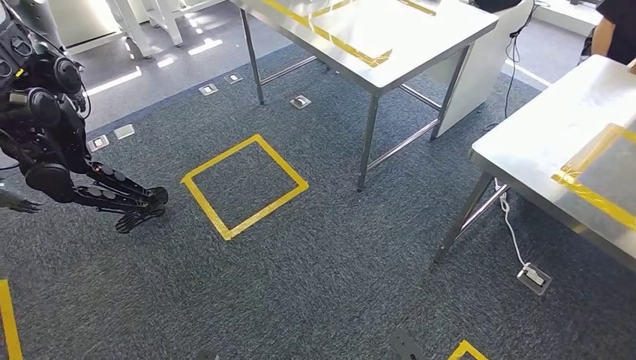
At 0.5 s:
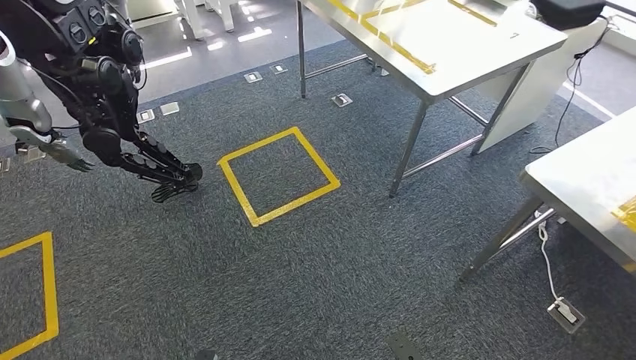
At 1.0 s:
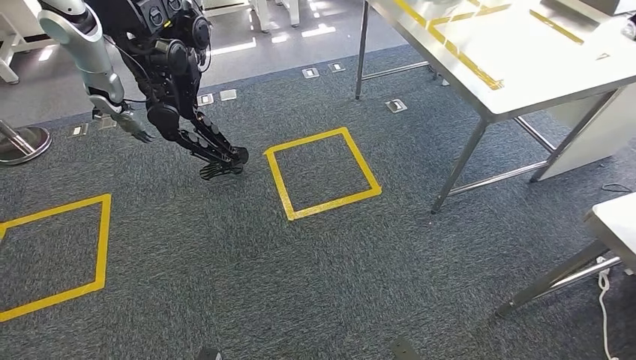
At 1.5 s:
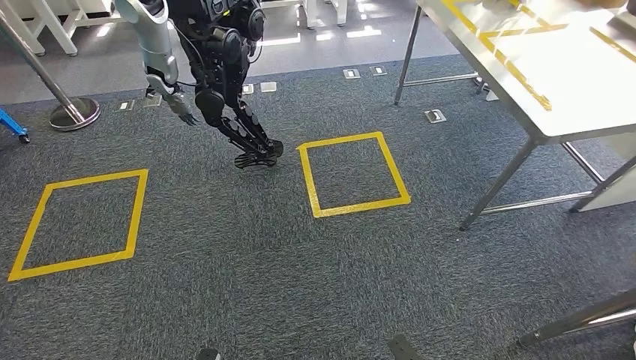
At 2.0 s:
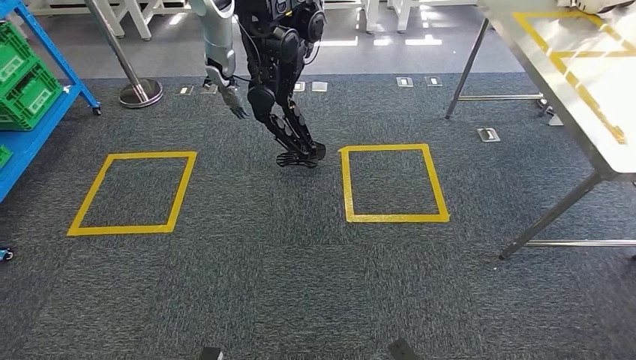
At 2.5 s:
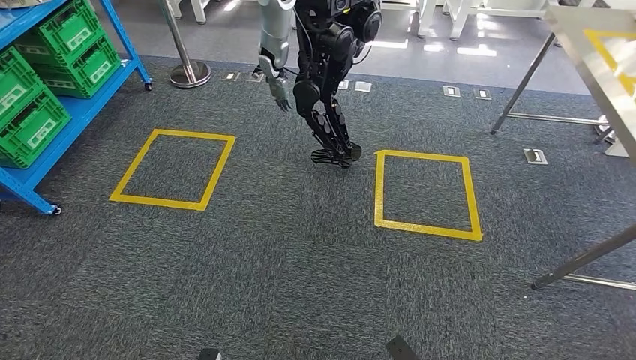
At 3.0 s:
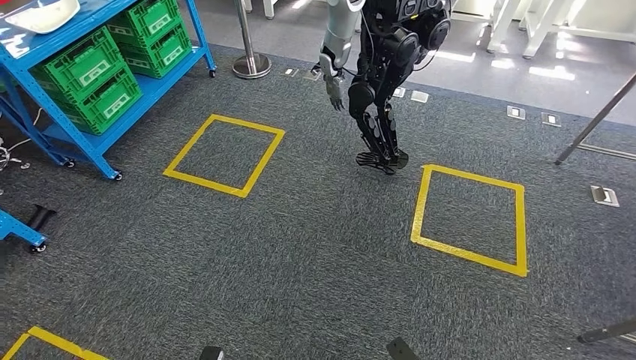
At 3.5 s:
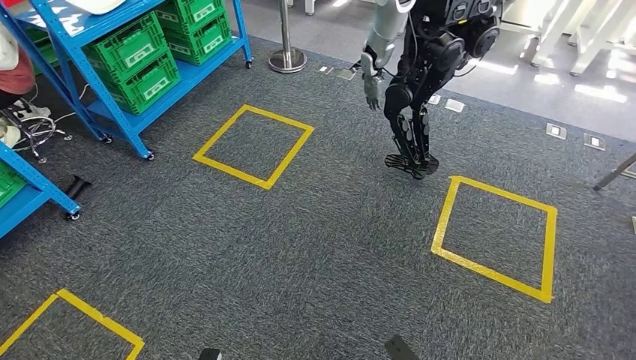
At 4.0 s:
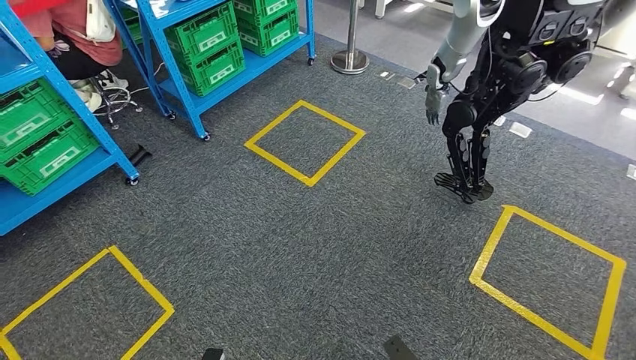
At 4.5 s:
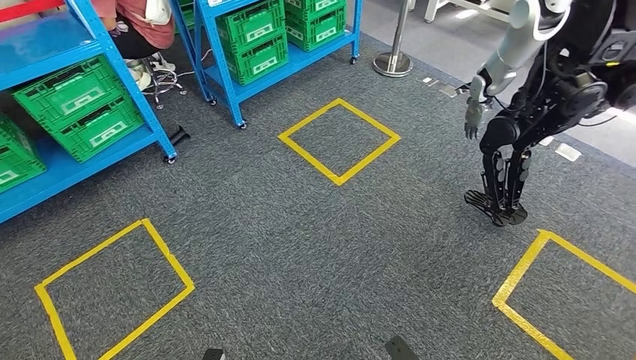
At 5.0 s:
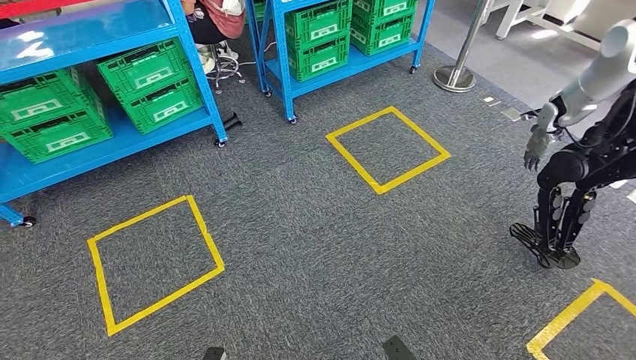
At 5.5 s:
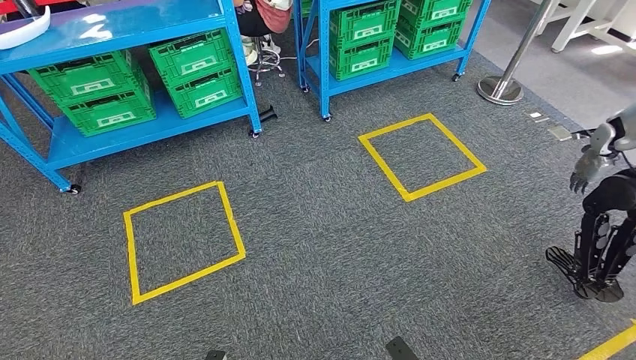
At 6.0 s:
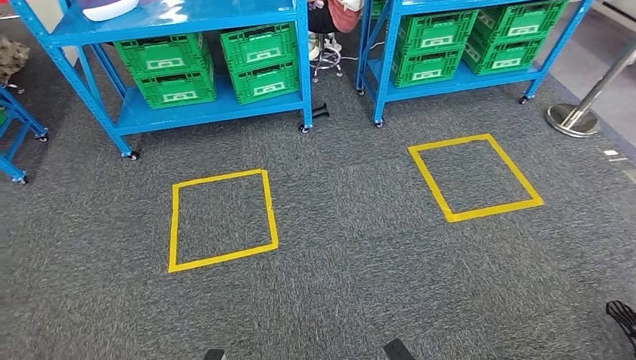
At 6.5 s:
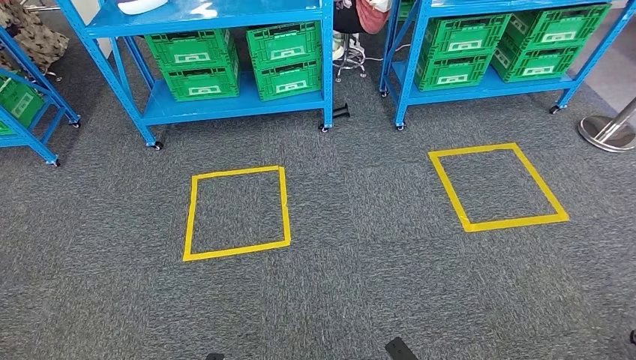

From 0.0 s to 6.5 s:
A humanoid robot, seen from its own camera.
Step, from 0.0 s to 6.5 s: Return to the initial position at the workbench.
